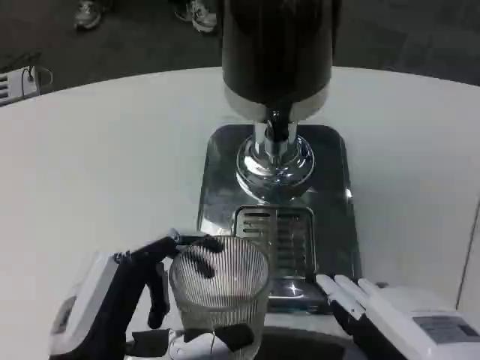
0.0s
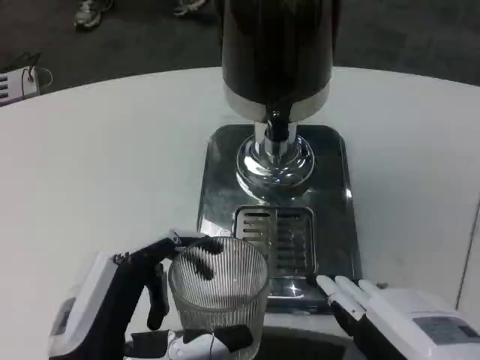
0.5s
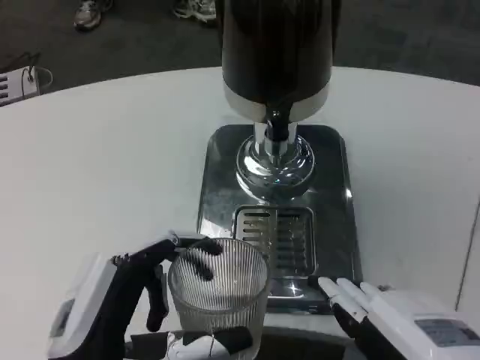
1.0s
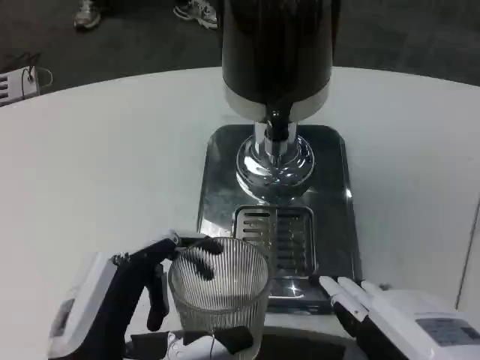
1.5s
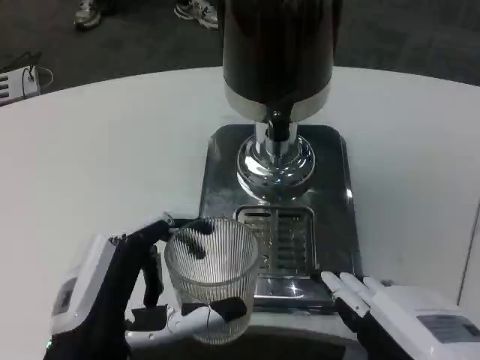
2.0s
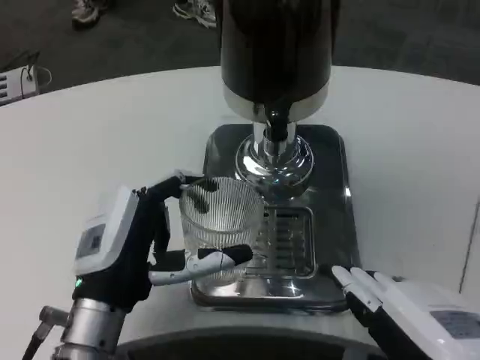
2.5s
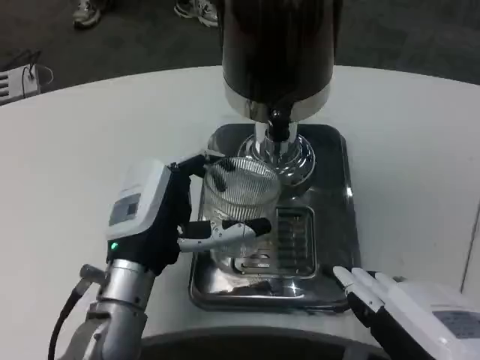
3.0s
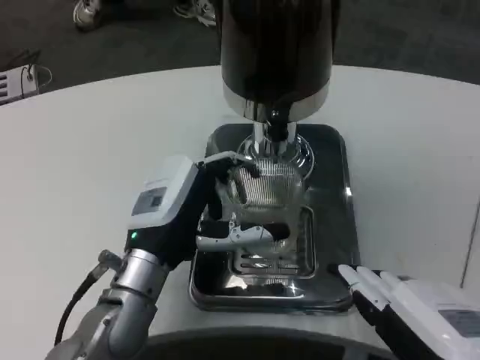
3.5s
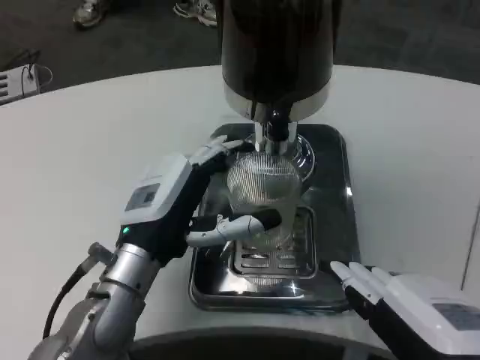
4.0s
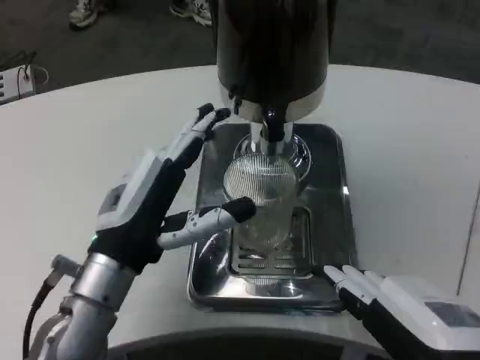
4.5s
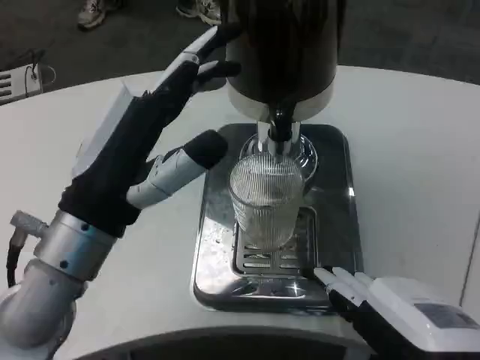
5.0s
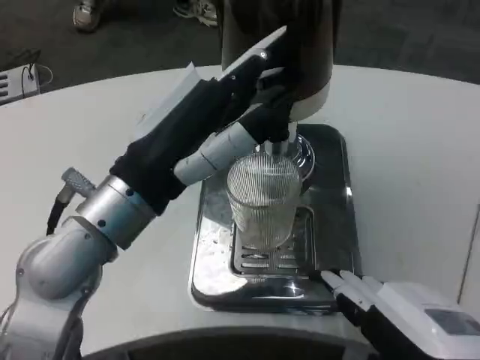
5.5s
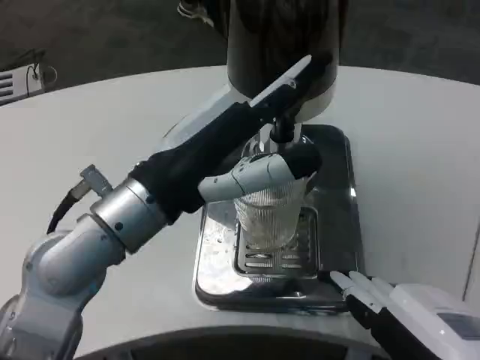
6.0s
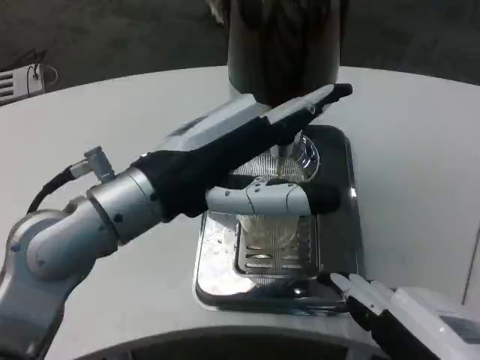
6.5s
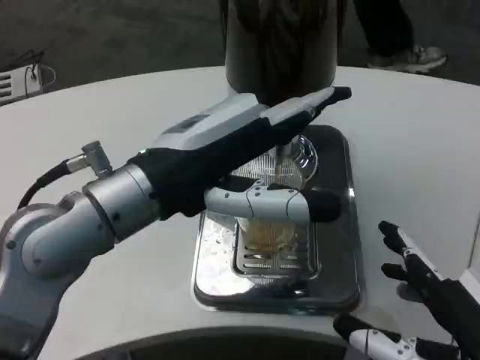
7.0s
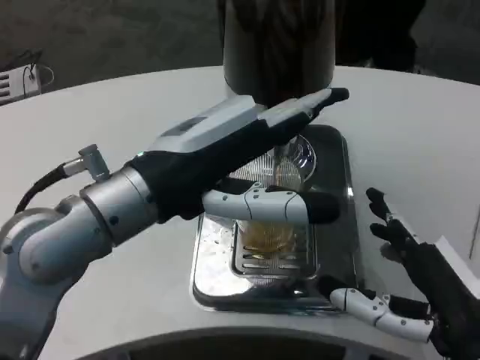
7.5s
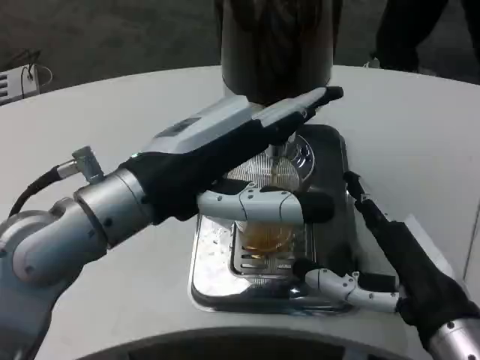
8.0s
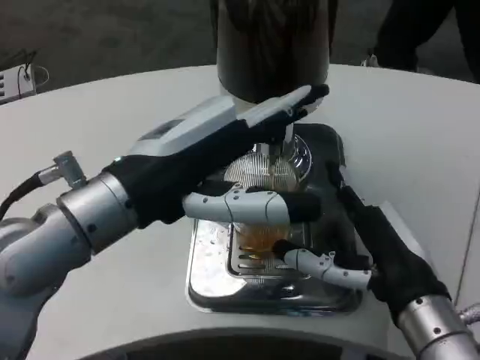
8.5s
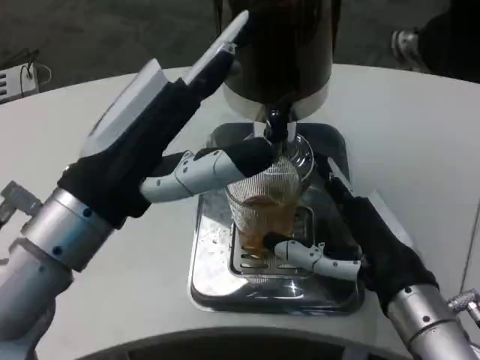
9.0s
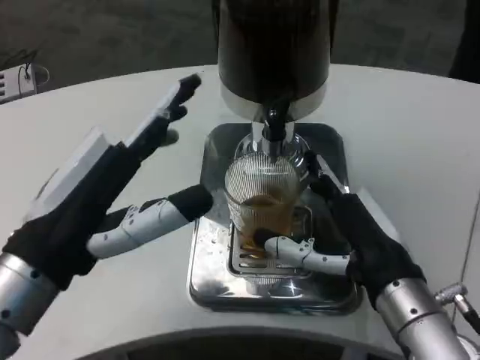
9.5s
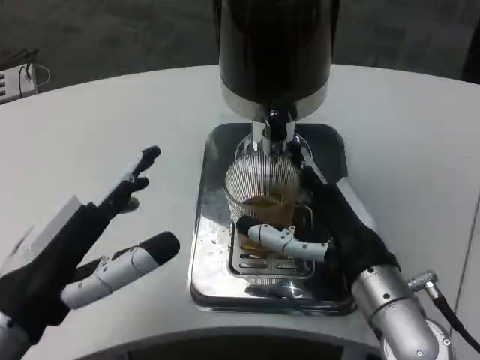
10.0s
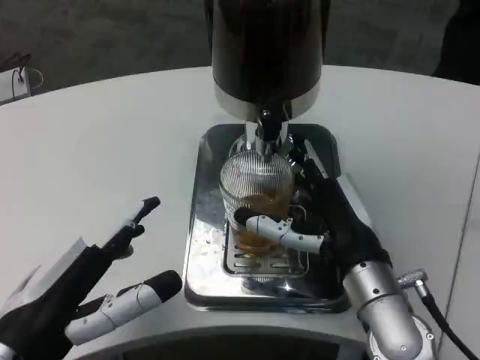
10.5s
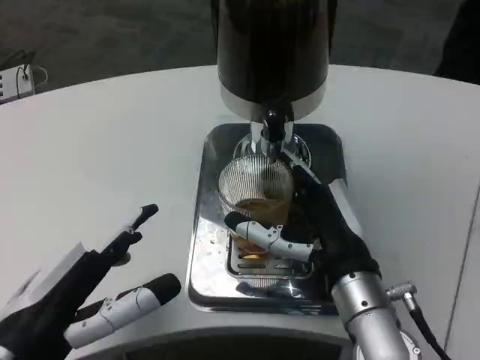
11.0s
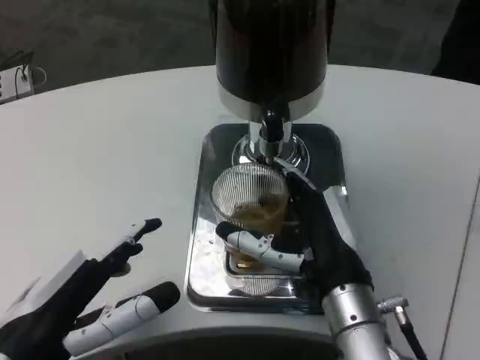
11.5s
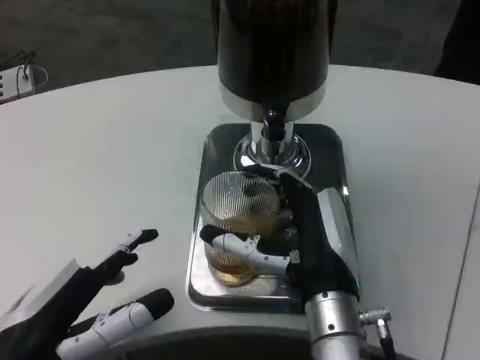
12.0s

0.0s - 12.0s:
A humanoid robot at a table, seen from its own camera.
Task of the whole recording: Grasp the cup under the faucet to collect the drink, then remove the cup.
0.0s - 2.0s: The hands move only a little.
2.0s - 4.0s: The left hand moves forward, about 10 cm.
4.0s - 6.0s: The left hand moves upward, roughly 10 cm.
6.0s - 8.0s: The right hand goes roughly 10 cm forward.
8.0s - 10.0s: The left hand goes approximately 15 cm downward, to the left and backward, while the right hand goes about 5 cm forward.
10.0s - 12.0s: The right hand travels to the left by roughly 5 cm.

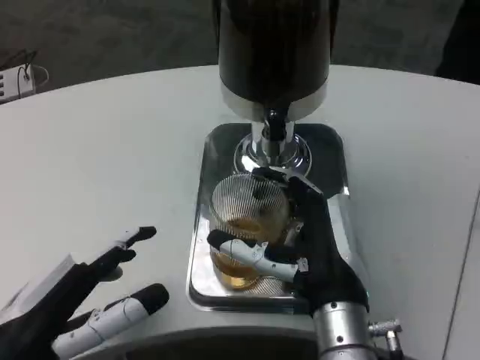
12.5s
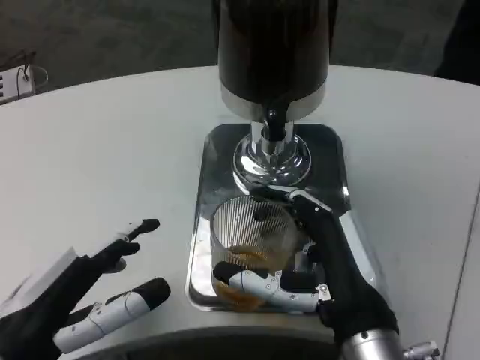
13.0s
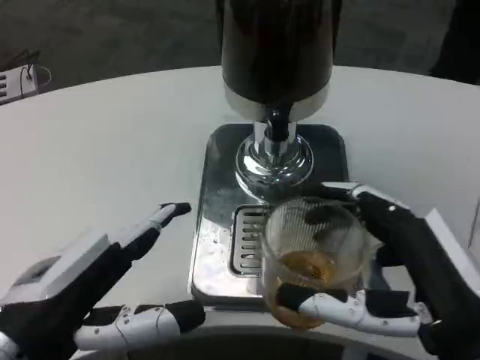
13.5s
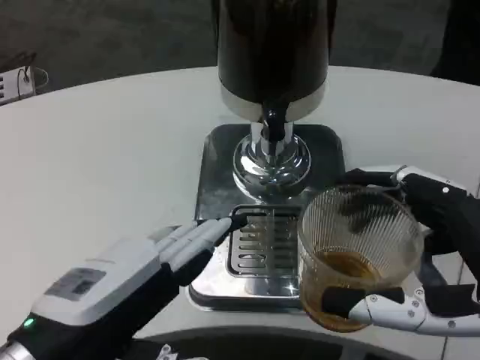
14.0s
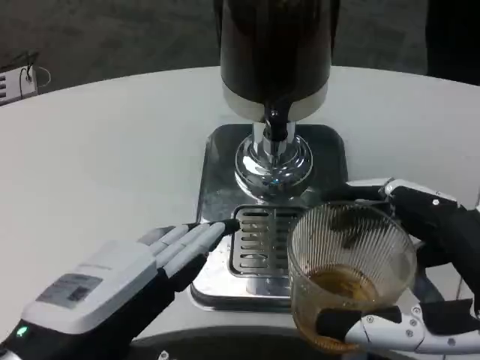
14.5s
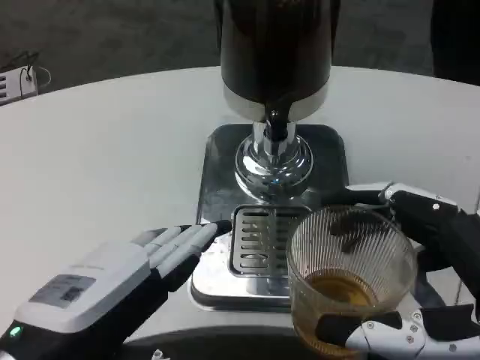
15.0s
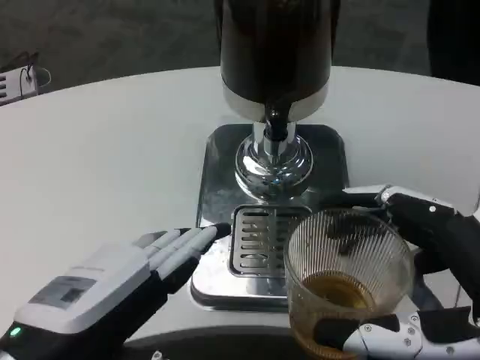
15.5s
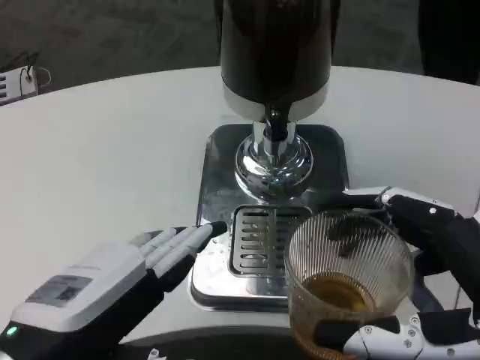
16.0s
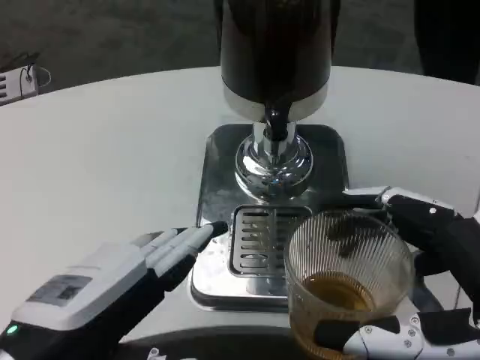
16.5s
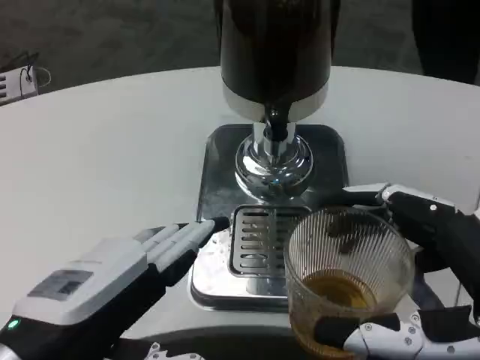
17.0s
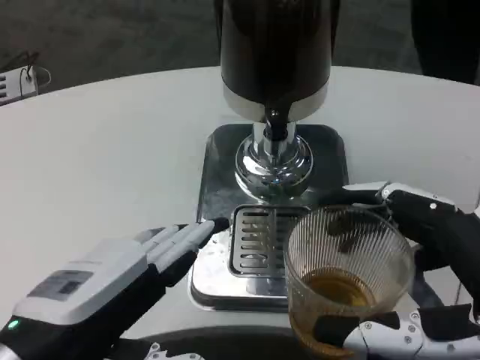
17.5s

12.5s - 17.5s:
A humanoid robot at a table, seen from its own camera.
Task of the whole recording: Grasp the cup under the faucet to collect the drink, then remove the cup.
12.5s - 15.0s: The left hand moves approximately 5 cm. Meanwhile the right hand moves to the right, backward and upward, about 20 cm.
15.0s - 17.5s: Both hands stay about where they are.

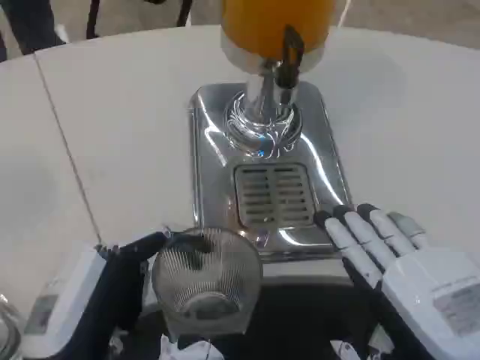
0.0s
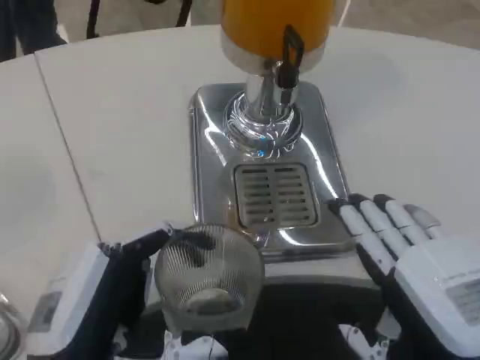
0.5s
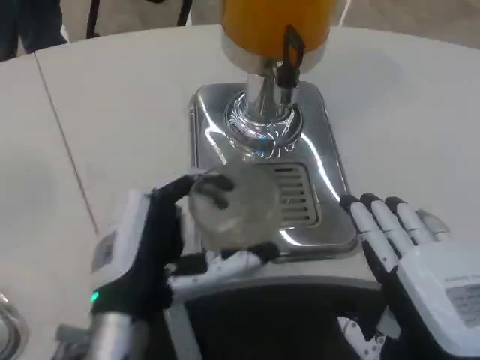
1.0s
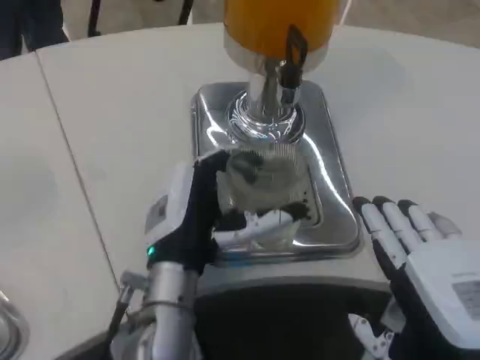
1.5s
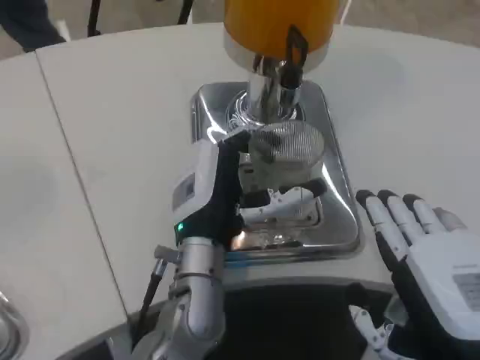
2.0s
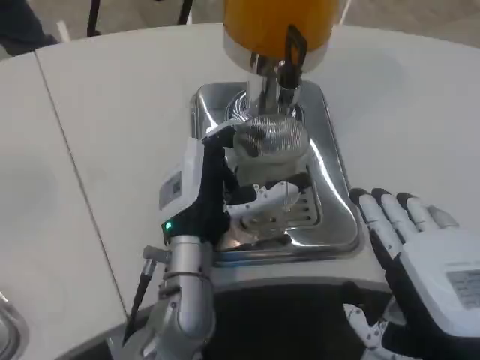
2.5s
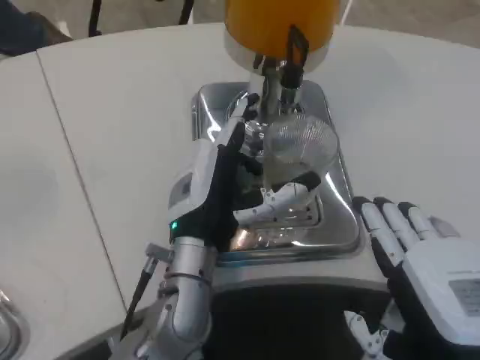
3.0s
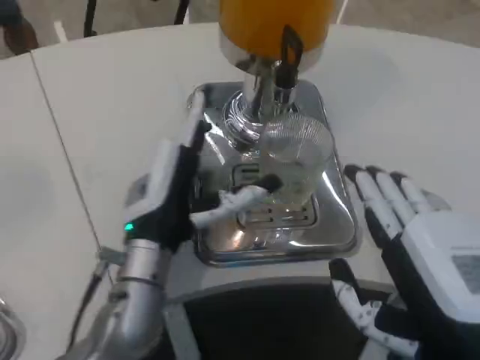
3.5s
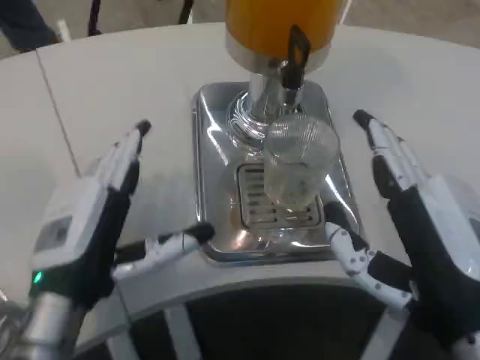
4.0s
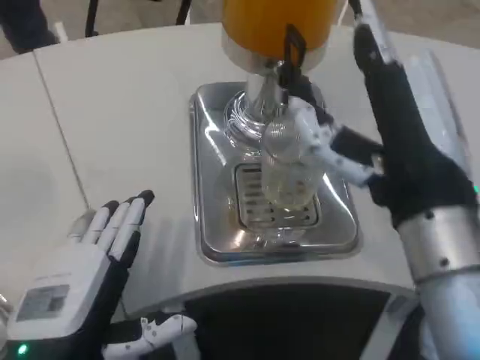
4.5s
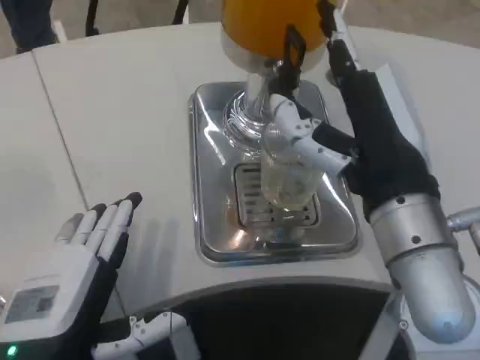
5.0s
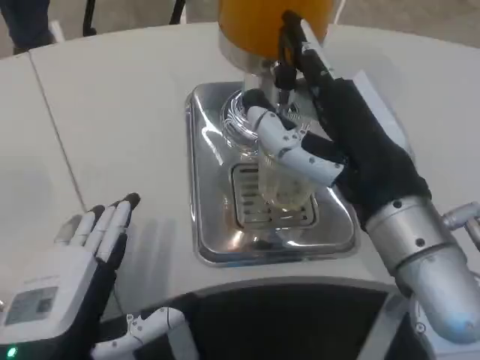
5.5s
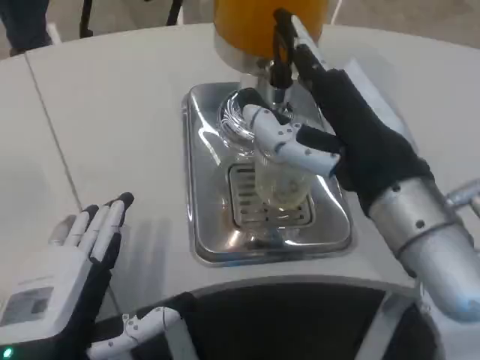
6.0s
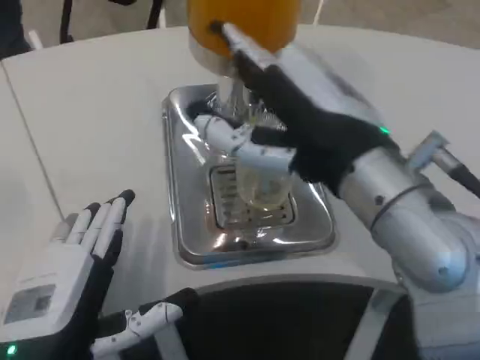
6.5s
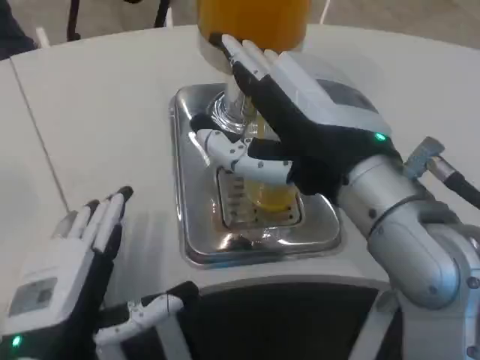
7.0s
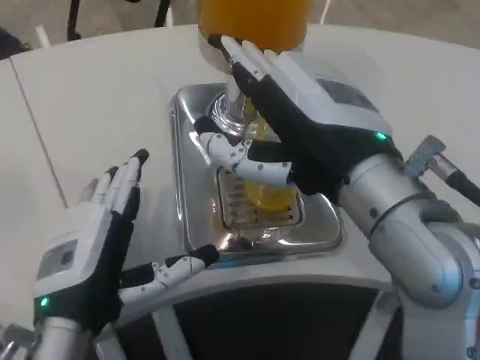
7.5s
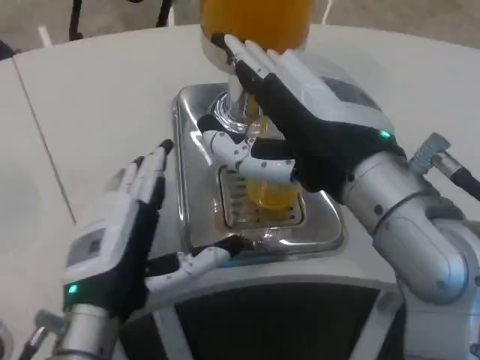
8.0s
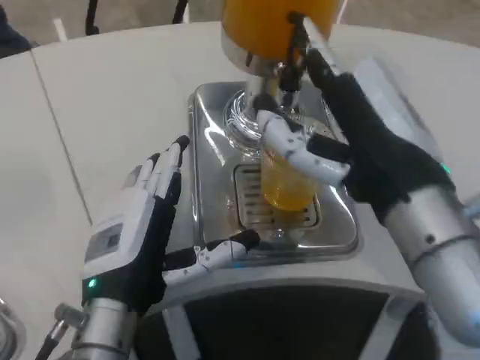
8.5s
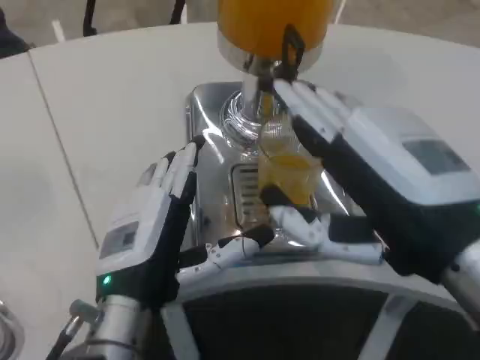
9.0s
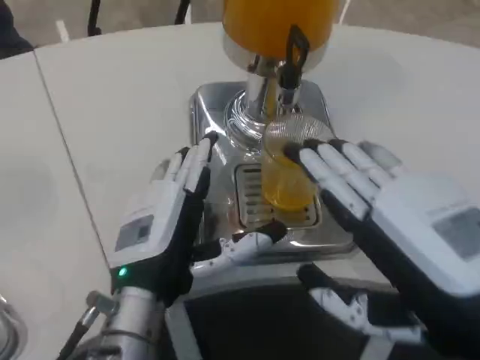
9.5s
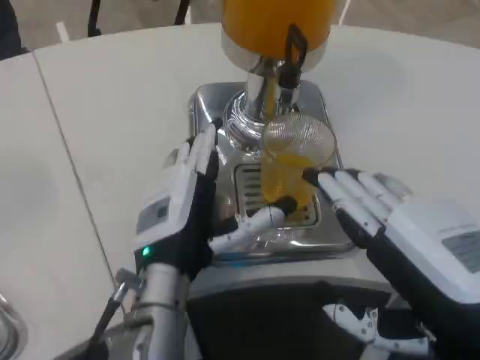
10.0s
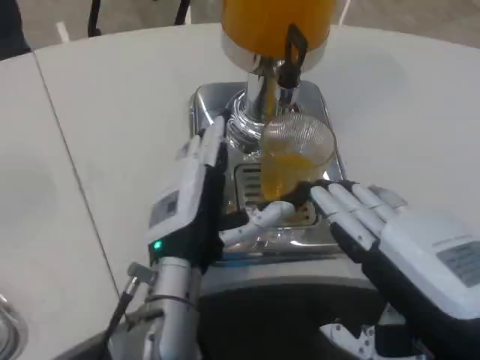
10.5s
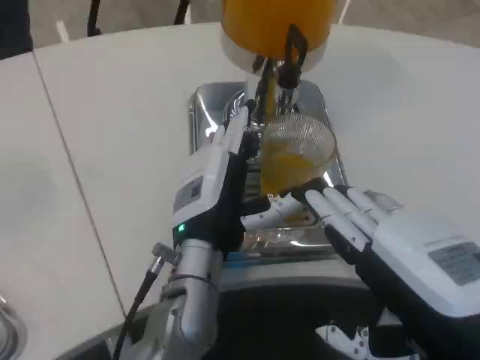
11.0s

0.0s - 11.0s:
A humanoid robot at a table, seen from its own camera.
Task of the whole recording: Grasp the cup under the faucet to collect the drink, then remove the cup.
0.0s - 2.0s: The left hand moves forward and to the right, approximately 20 cm.
2.0s - 3.5s: The left hand goes roughly 5 cm to the left.
3.5s - 5.5s: The left hand goes roughly 15 cm backward and to the left. Meanwhile the right hand heads forward and upward, covering some 10 cm.
5.5s - 7.5s: The left hand changes place by about 5 cm.
7.5s - 9.0s: The right hand goes some 5 cm to the right.
9.0s - 11.0s: The right hand changes place by approximately 5 cm. Meanwhile the left hand goes about 10 cm forward and to the right.
